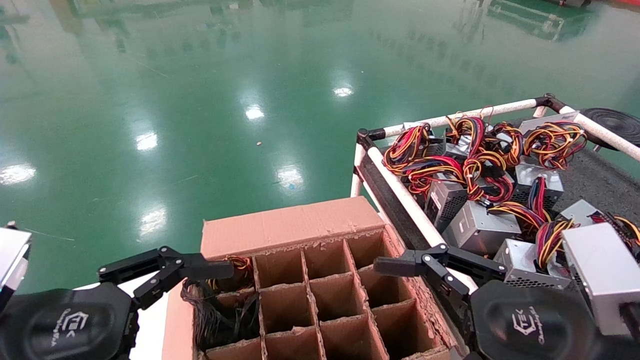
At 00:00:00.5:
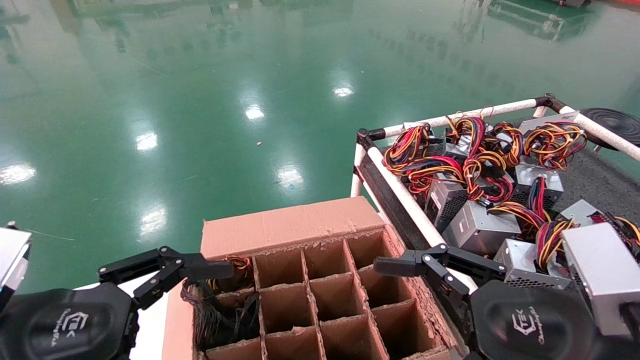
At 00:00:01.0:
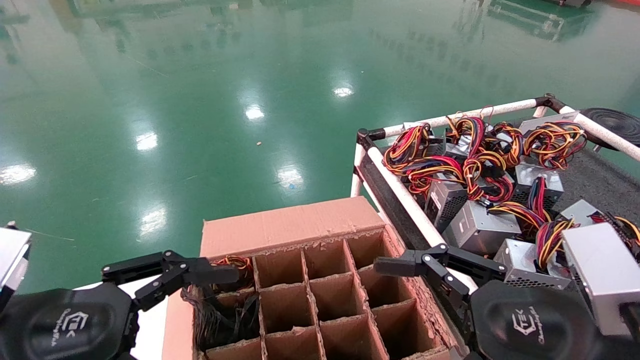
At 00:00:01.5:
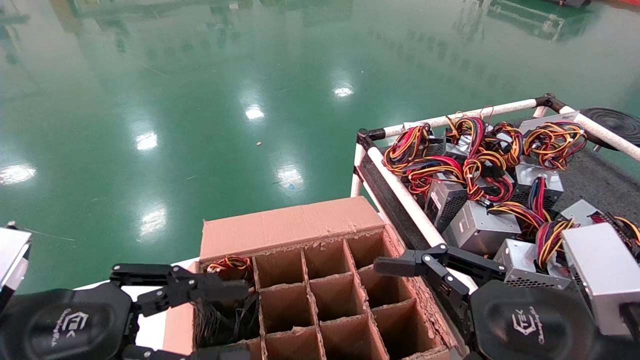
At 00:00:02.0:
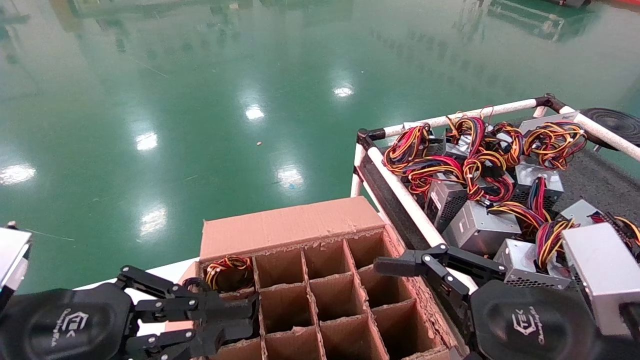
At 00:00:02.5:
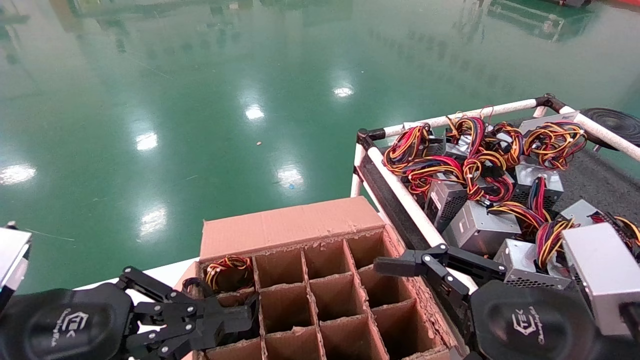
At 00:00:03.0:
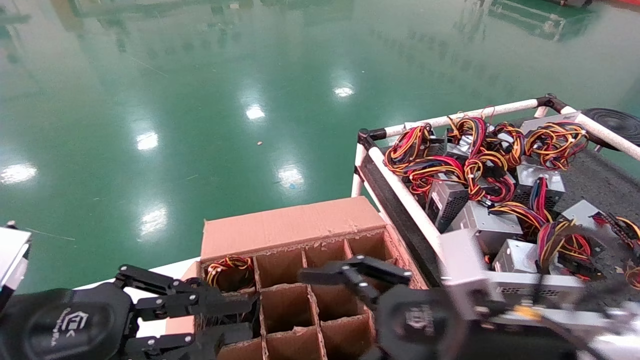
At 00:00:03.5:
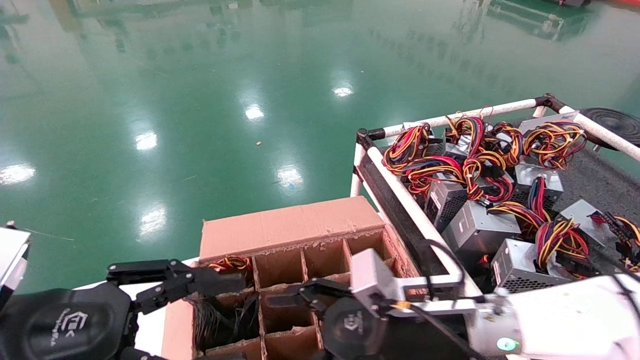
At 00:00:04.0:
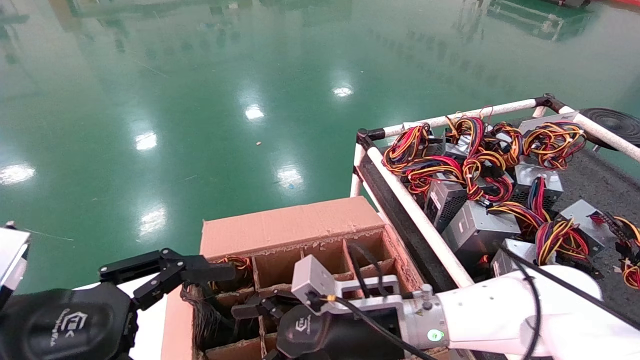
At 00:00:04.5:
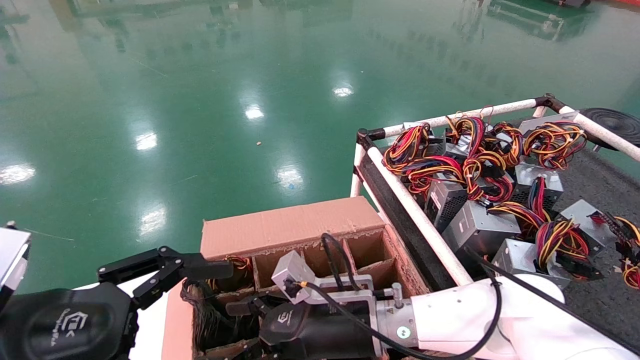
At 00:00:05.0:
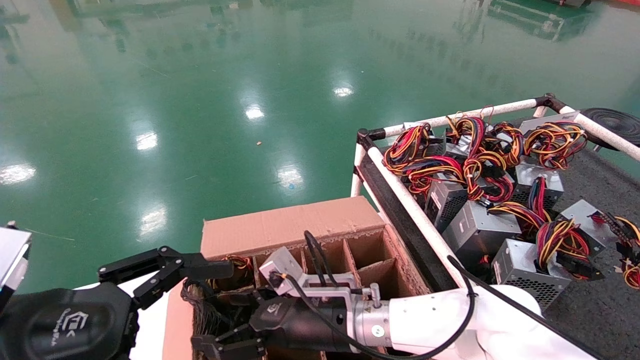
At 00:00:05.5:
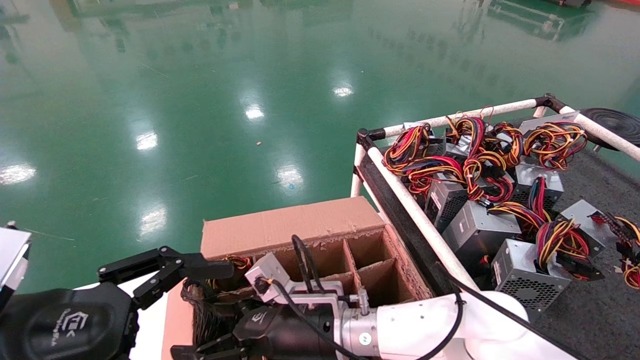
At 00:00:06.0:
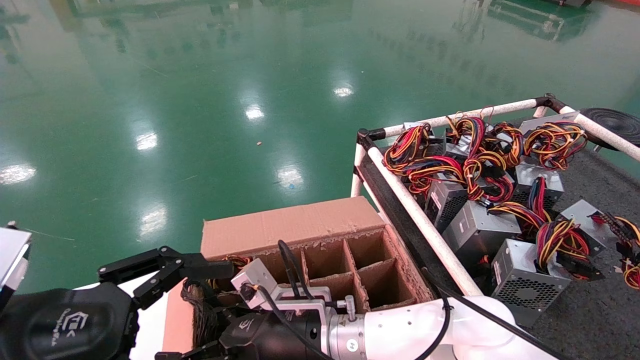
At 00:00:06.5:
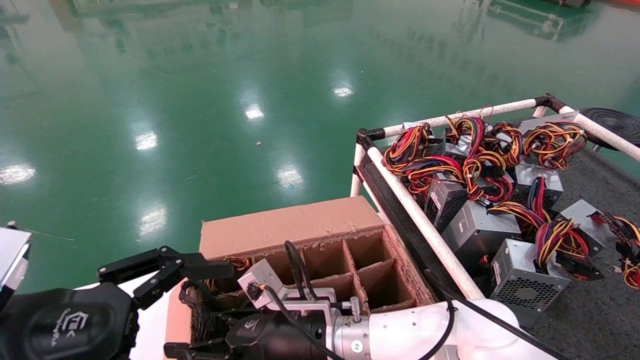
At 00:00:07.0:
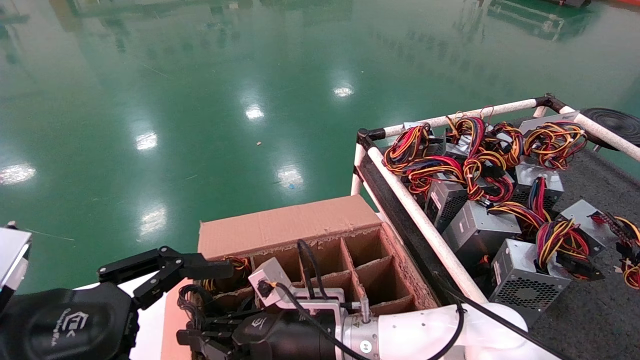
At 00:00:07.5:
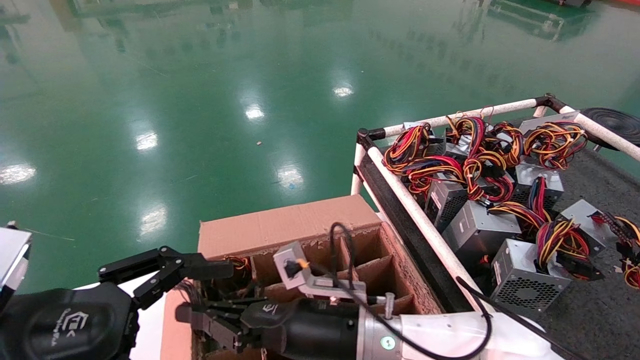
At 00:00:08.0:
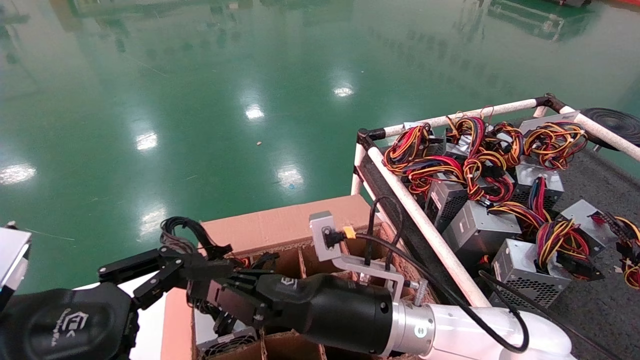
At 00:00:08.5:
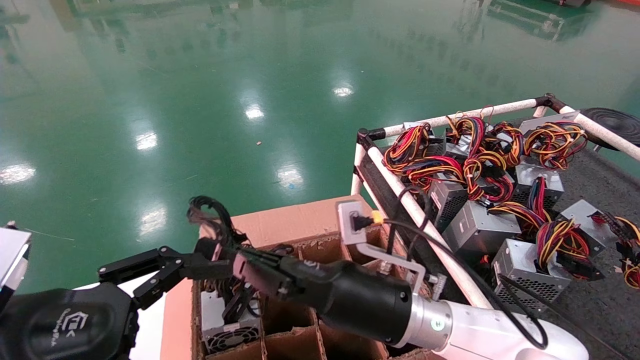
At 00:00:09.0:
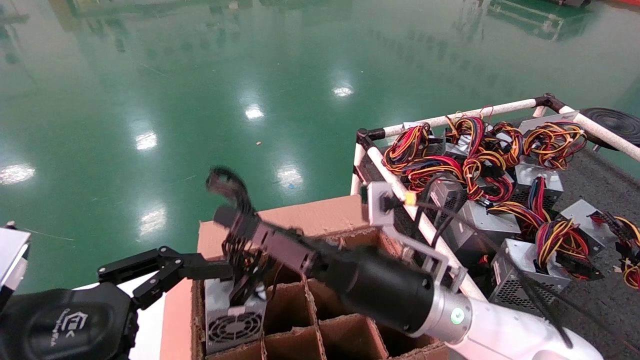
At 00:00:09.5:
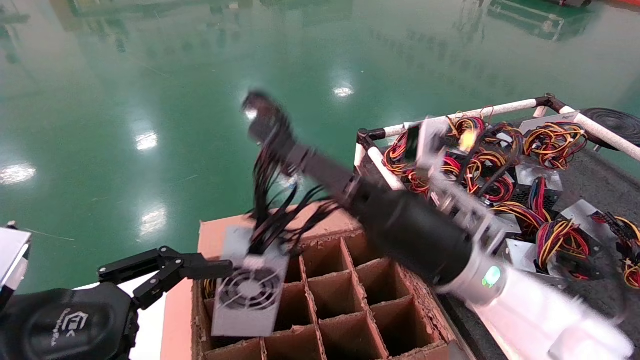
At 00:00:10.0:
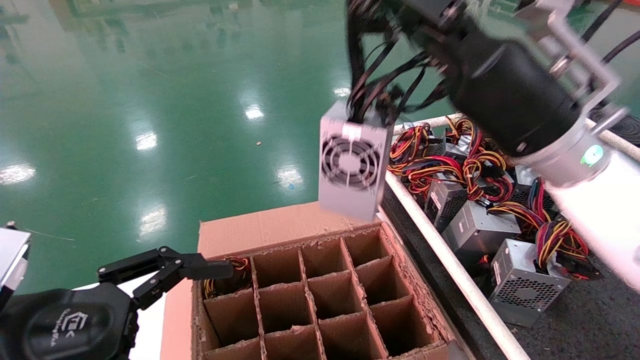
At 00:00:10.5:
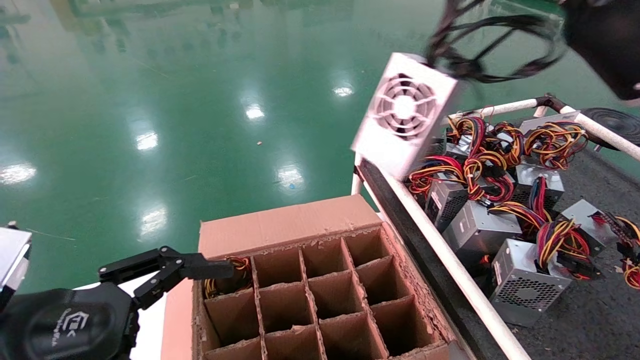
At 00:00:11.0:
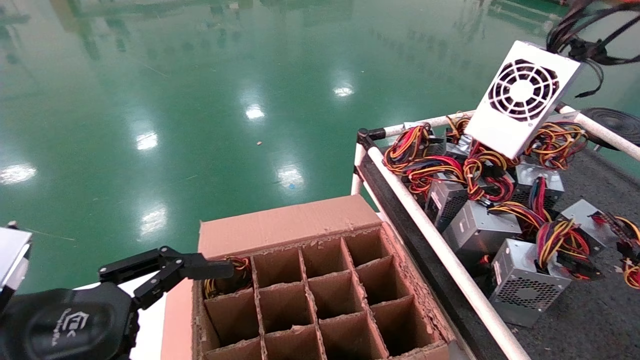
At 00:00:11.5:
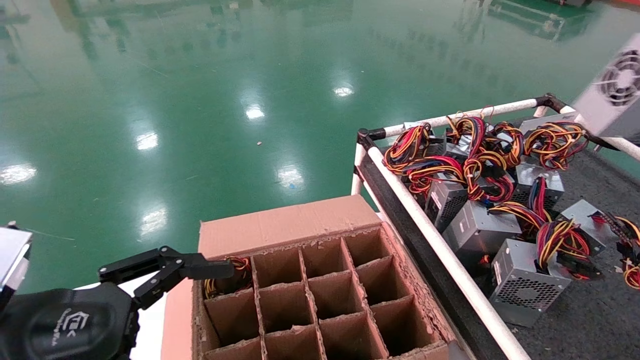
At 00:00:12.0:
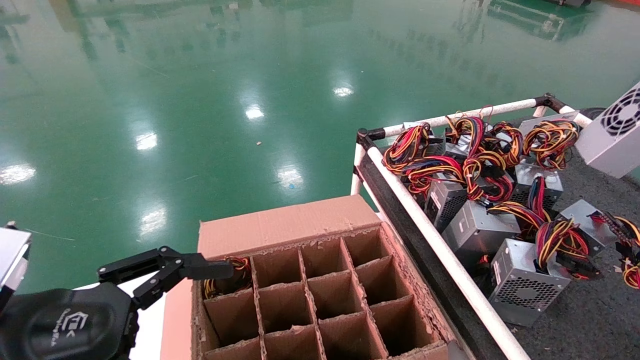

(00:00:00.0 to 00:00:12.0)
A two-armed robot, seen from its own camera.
Step, 00:00:03.5 - 00:00:07.0: Grab and lift the power supply from the large box.
00:00:00.0 - 00:00:02.0: The left gripper closes its fingers.
00:00:02.0 - 00:00:04.0: The left gripper opens, while the right gripper moves to the left, forward and downward, approximately 25 cm.
00:00:04.0 - 00:00:06.0: The right gripper moves to the left, some 10 cm.
00:00:06.0 - 00:00:08.0: The right gripper shifts roughly 10 cm to the right and upward, and closes its fingers.
00:00:08.0 - 00:00:10.0: The right gripper shifts about 25 cm upward and to the right.
00:00:10.0 - 00:00:12.0: The right gripper is displaced to the right by roughly 35 cm.

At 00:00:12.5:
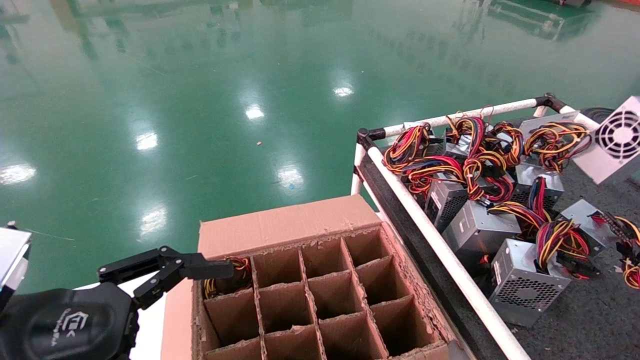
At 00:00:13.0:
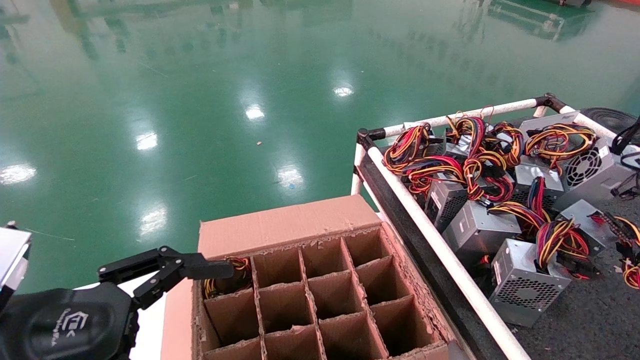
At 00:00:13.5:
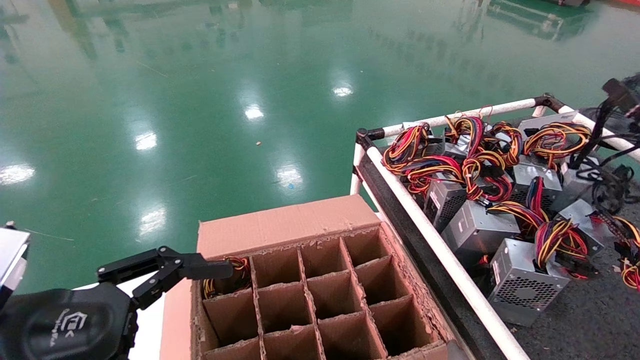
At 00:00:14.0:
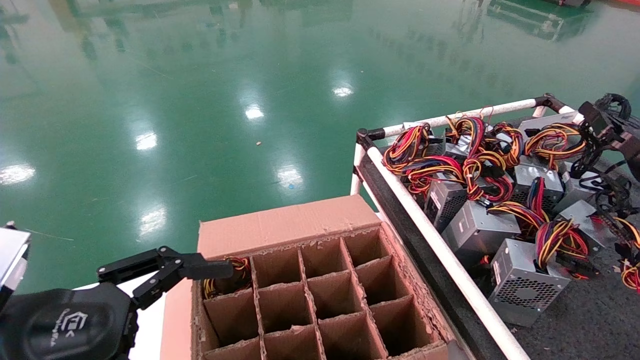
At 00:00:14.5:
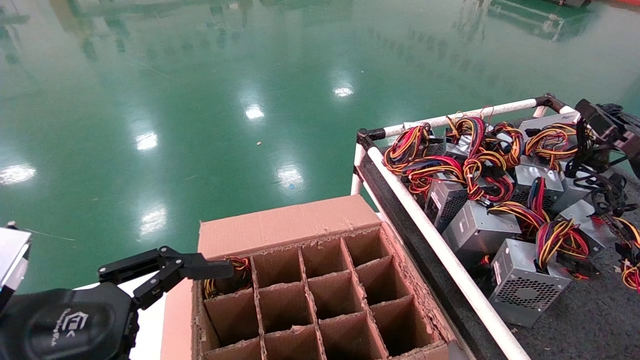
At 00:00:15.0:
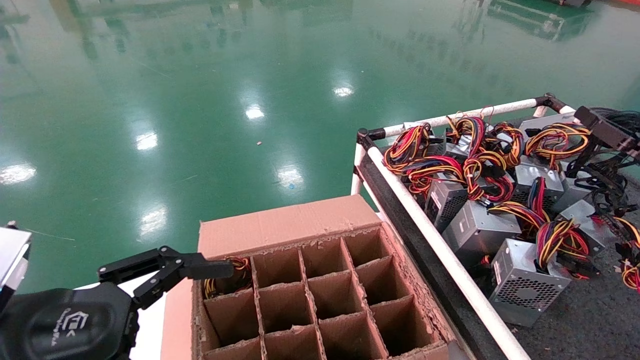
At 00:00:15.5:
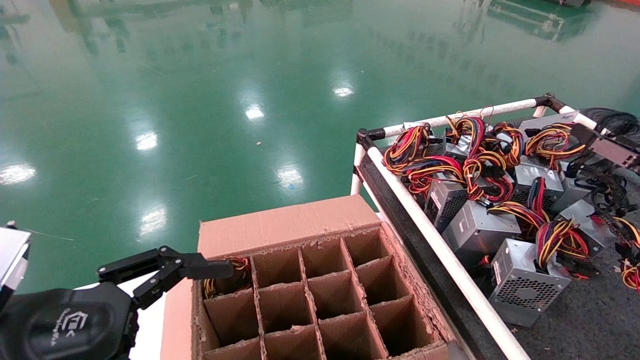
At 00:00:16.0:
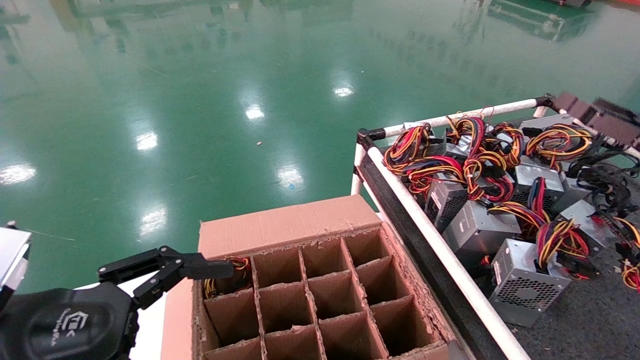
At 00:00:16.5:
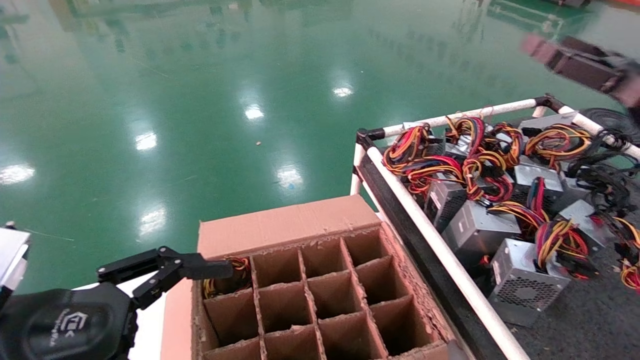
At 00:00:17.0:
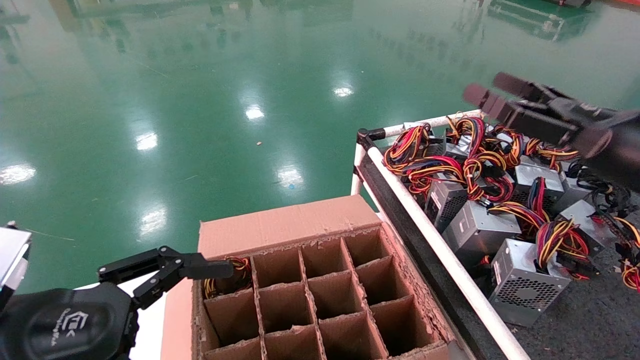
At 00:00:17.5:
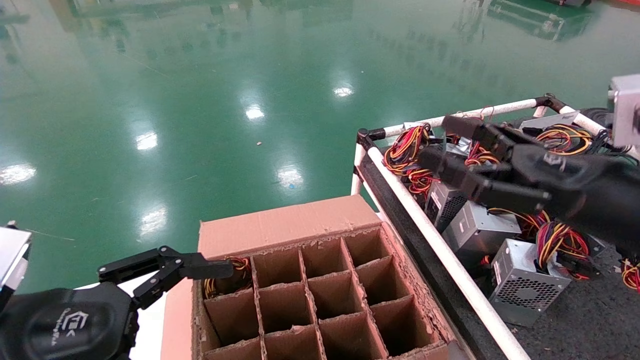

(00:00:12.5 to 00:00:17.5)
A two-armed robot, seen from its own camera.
00:00:12.5 - 00:00:15.0: The right gripper goes some 10 cm downward and forward, and opens up.
00:00:15.0 - 00:00:17.5: The right gripper is displaced to the left and backward by approximately 20 cm, and opens its fingers.
